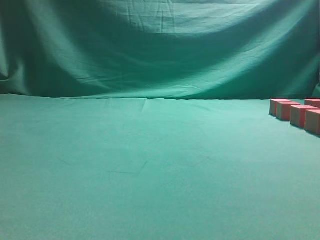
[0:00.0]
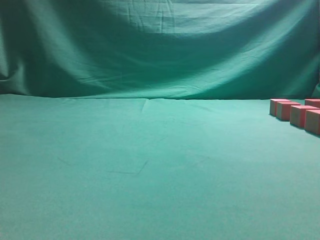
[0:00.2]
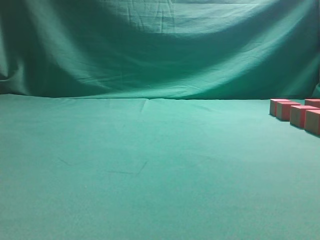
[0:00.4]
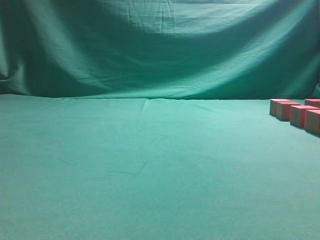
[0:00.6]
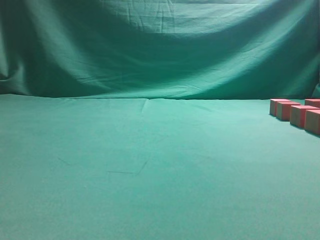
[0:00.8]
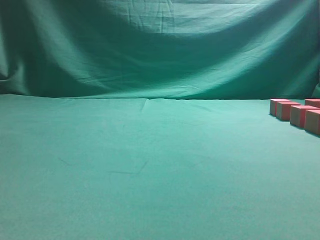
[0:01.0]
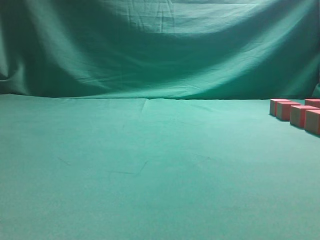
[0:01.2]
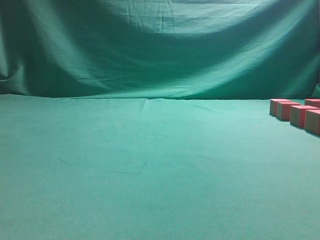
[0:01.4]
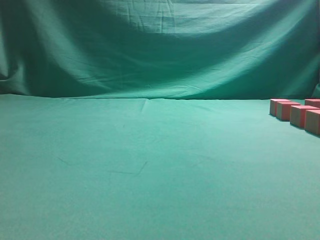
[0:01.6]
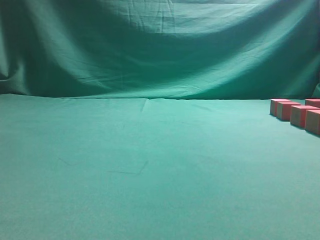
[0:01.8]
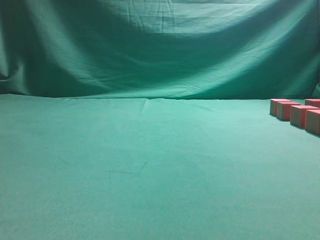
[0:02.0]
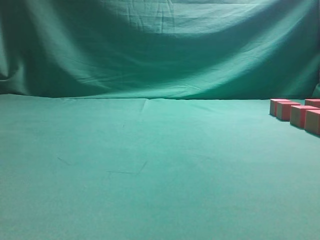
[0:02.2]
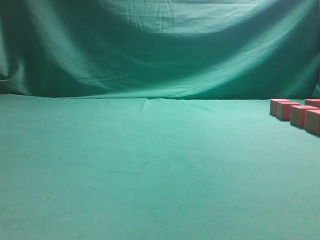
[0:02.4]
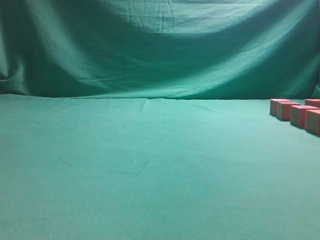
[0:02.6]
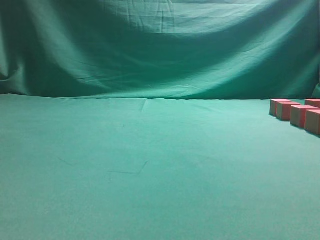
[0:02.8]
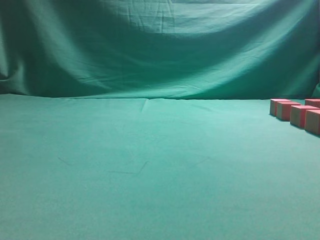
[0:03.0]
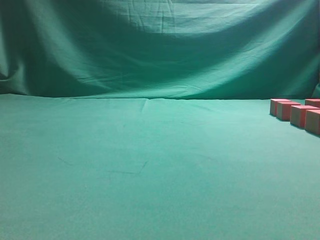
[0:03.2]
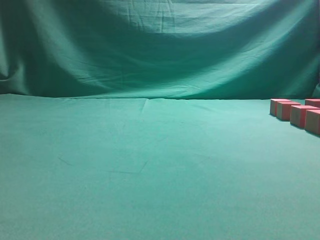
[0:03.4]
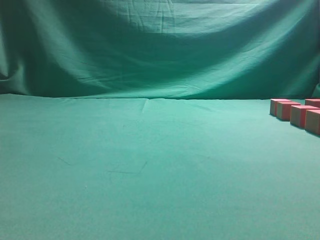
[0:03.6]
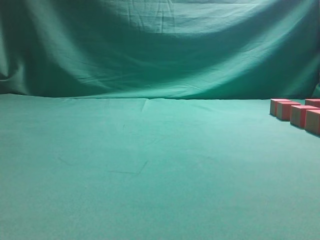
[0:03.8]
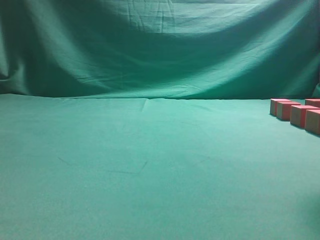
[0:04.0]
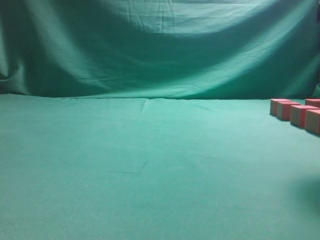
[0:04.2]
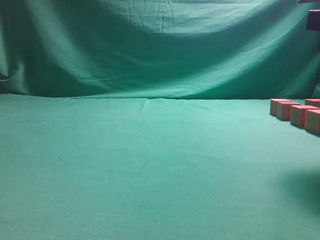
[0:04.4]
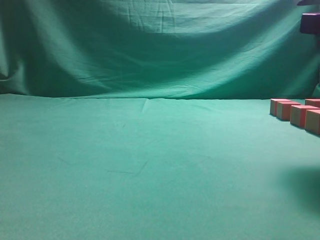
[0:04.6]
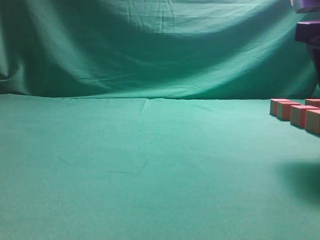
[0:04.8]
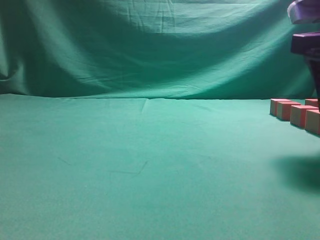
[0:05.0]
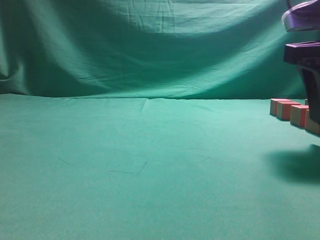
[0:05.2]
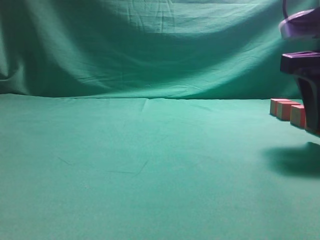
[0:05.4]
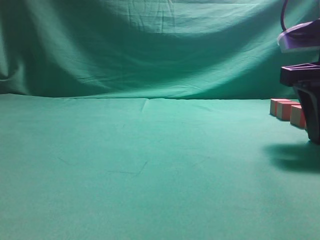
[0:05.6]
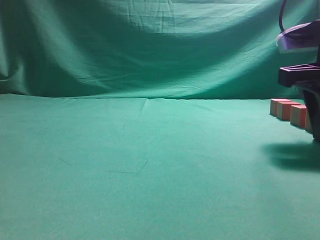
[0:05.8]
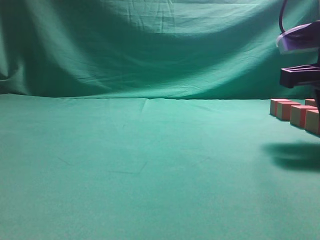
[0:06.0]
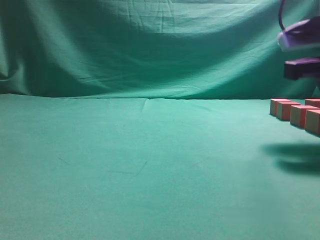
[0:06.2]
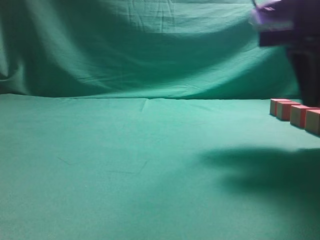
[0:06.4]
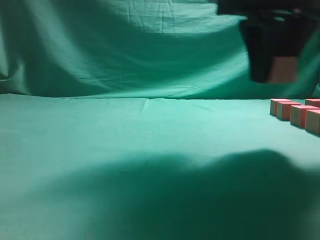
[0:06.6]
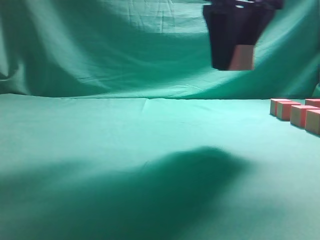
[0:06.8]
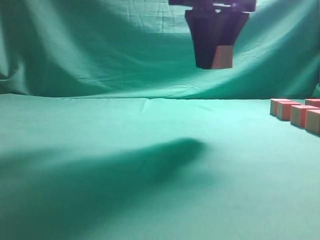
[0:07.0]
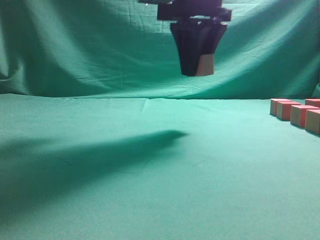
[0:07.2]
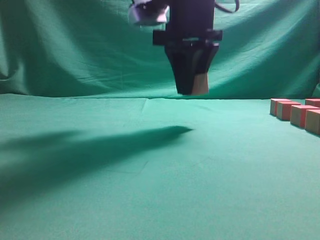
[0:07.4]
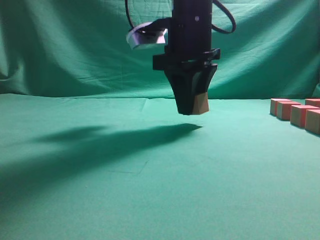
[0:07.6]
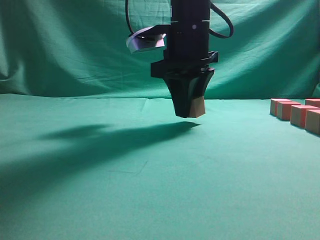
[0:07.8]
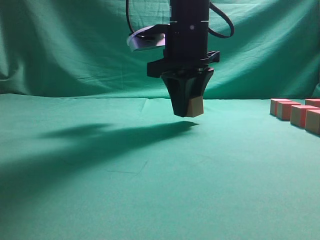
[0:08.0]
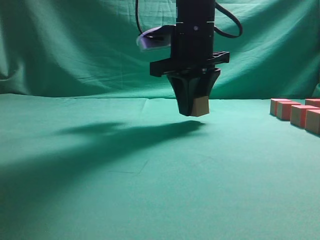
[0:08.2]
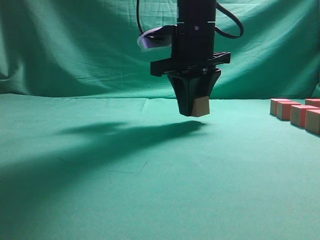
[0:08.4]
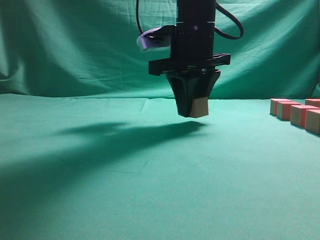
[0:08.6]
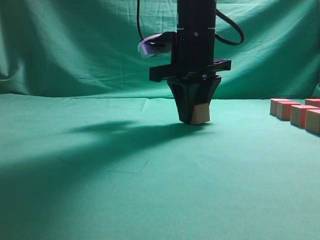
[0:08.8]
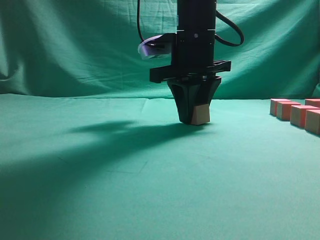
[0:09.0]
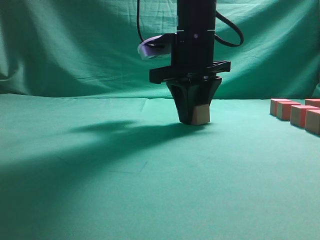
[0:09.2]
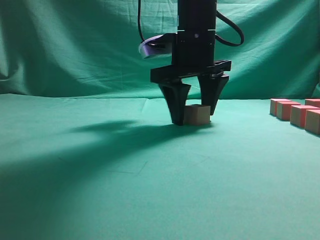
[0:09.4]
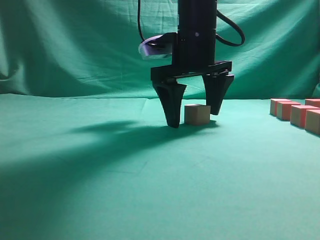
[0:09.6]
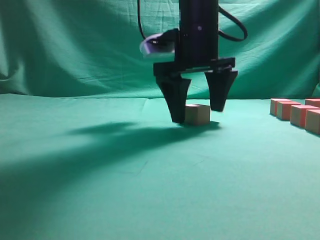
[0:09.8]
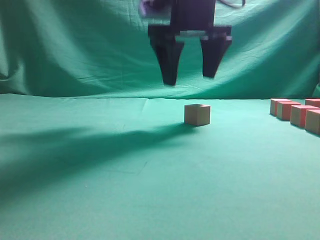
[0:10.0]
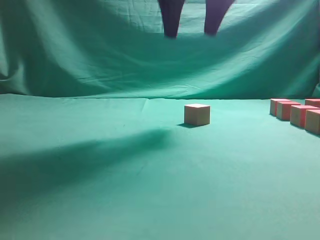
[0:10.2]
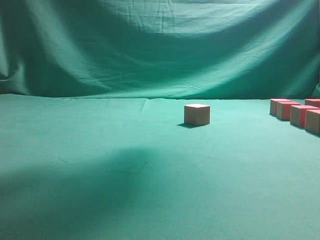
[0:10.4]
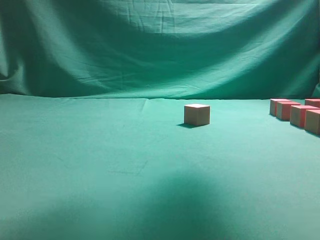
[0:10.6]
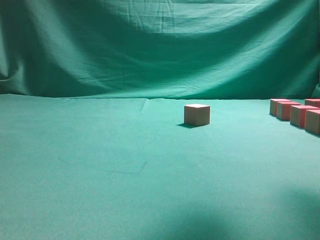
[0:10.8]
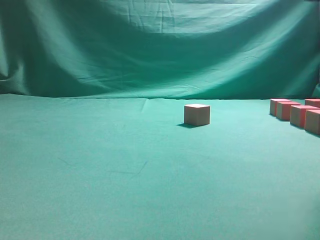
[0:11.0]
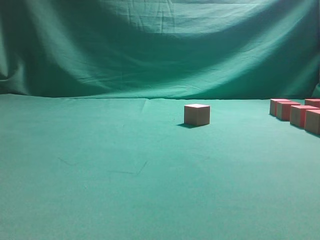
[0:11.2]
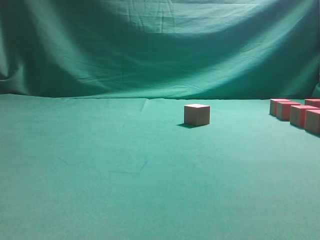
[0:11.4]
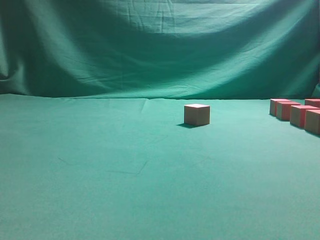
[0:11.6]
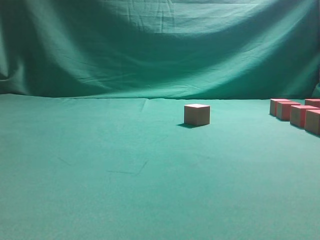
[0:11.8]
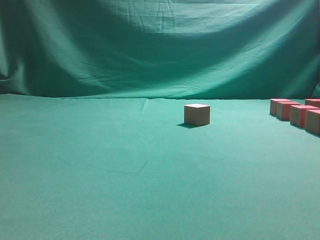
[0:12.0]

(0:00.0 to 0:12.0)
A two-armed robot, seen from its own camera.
Task of the whole recording: pick up the multiple cubes in two columns one by one and place them in another position on the table.
Step, 0:00.0 - 0:06.2: Pick up the block on the table.
Step, 0:06.4 - 0:10.0: Place the block at the correct position to assemble the letter S.
0:03.0 - 0:04.4: The right gripper travels forward by some 15 cm.
0:04.4 - 0:06.0: The right gripper goes about 5 cm downward, and opens, then closes once more.
0:06.0 - 0:07.6: The right gripper shifts roughly 20 cm to the left and forward.
0:07.6 - 0:09.0: The grippers stay close to where they were, moving slightly.
0:09.0 - 0:10.4: The right gripper moves upward, approximately 20 cm, and opens up.
0:10.4 - 0:12.0: The right gripper heads to the right and downward, covering roughly 25 cm.

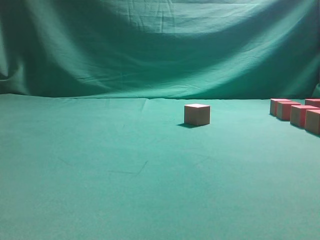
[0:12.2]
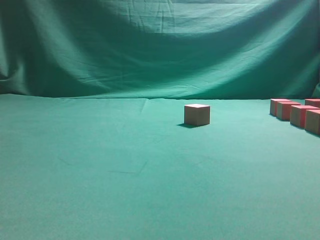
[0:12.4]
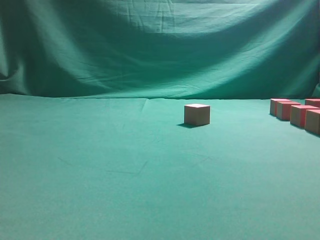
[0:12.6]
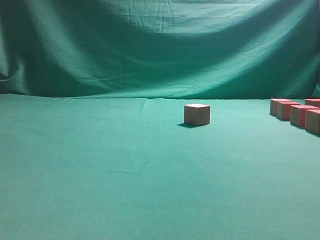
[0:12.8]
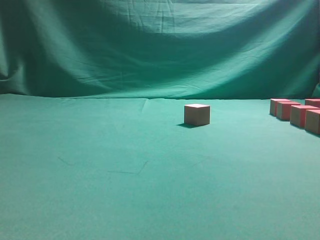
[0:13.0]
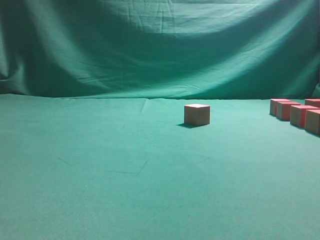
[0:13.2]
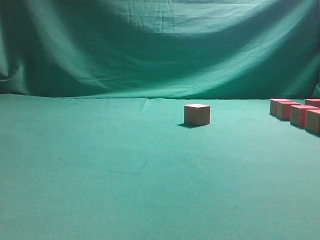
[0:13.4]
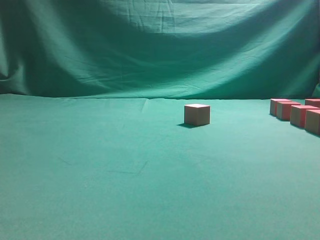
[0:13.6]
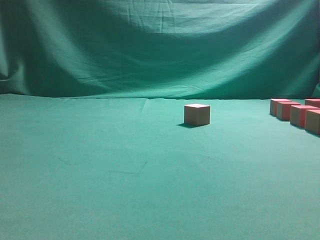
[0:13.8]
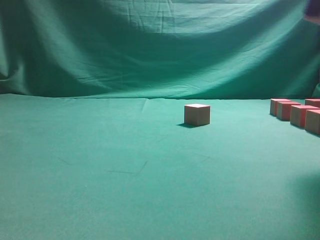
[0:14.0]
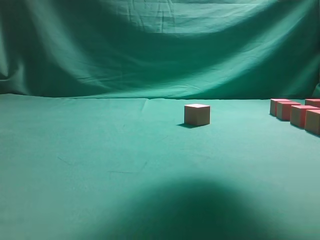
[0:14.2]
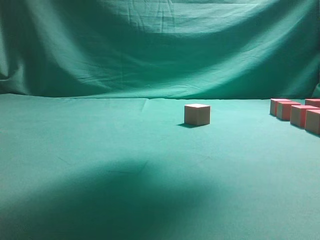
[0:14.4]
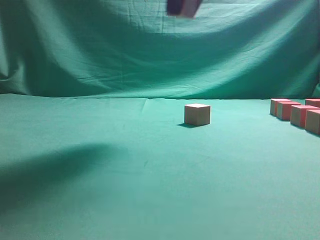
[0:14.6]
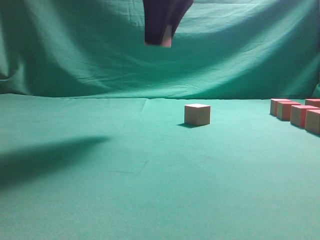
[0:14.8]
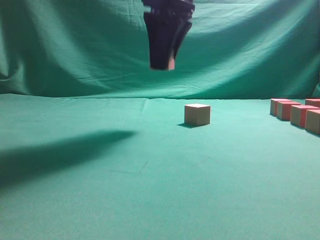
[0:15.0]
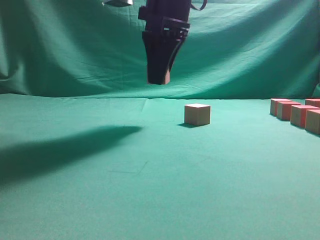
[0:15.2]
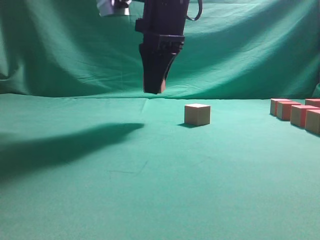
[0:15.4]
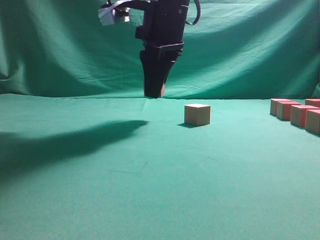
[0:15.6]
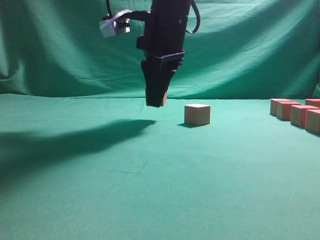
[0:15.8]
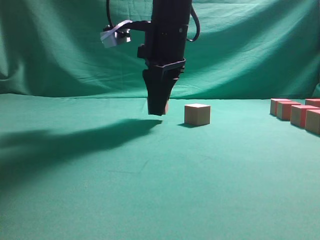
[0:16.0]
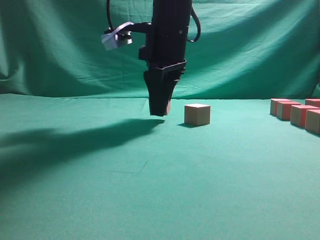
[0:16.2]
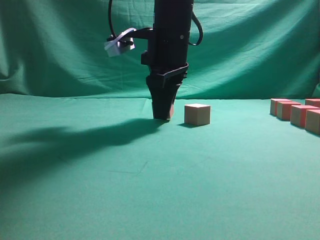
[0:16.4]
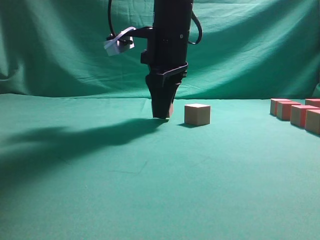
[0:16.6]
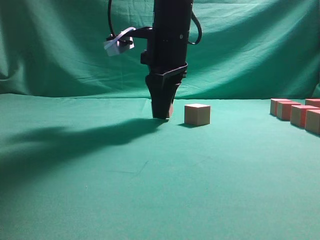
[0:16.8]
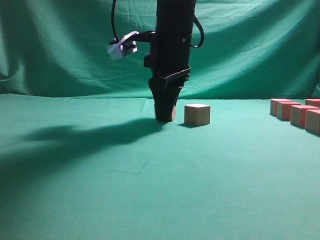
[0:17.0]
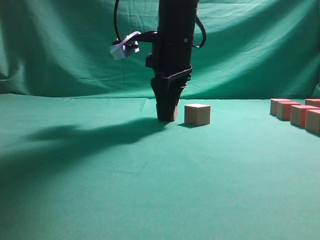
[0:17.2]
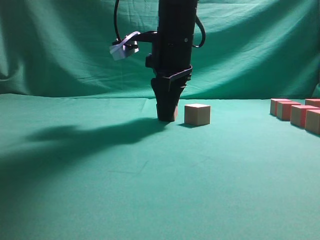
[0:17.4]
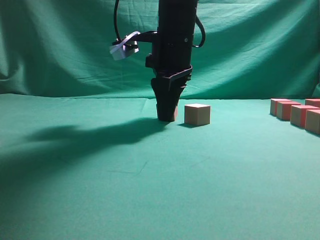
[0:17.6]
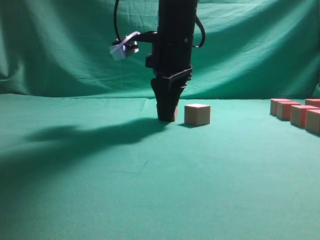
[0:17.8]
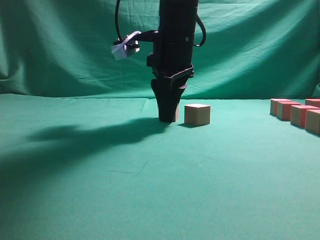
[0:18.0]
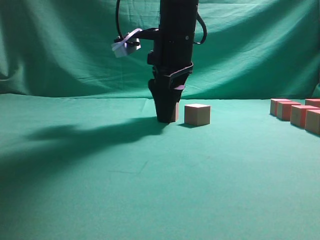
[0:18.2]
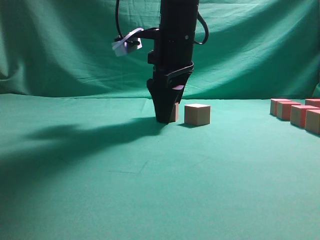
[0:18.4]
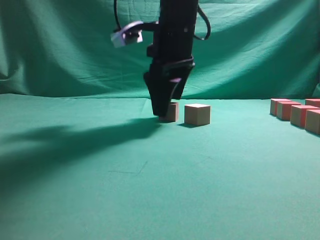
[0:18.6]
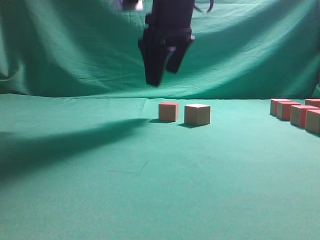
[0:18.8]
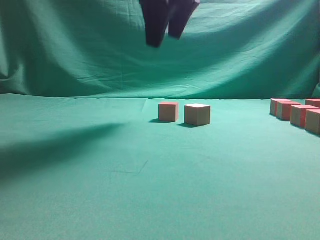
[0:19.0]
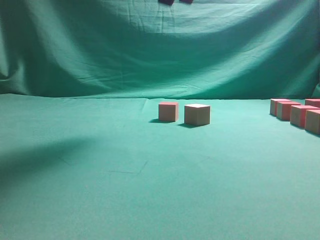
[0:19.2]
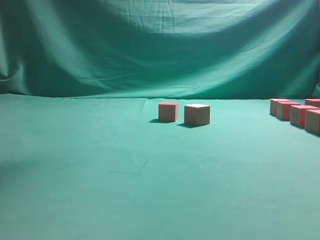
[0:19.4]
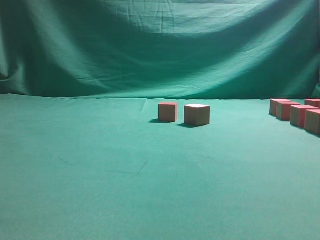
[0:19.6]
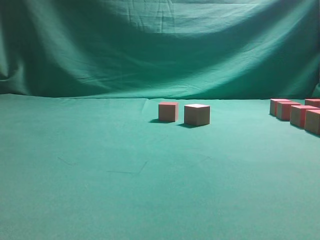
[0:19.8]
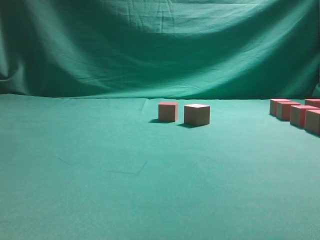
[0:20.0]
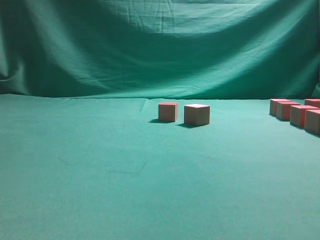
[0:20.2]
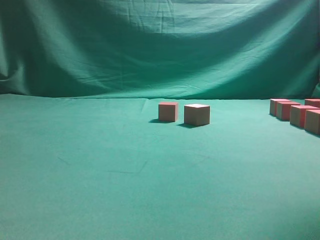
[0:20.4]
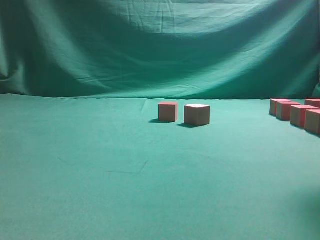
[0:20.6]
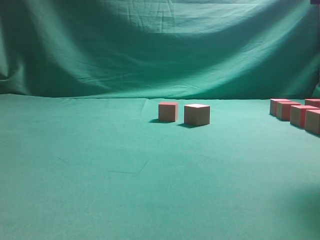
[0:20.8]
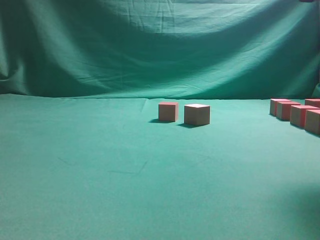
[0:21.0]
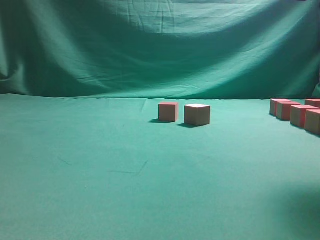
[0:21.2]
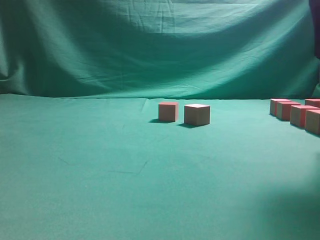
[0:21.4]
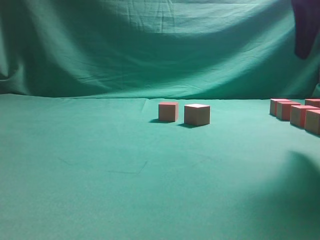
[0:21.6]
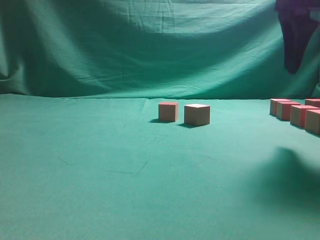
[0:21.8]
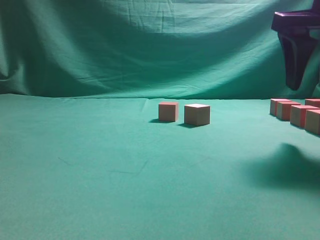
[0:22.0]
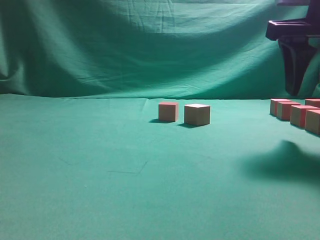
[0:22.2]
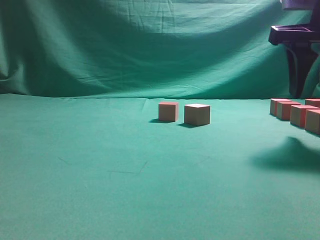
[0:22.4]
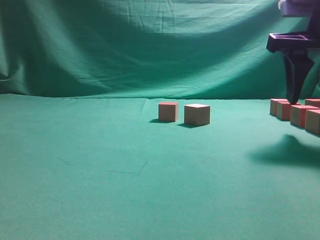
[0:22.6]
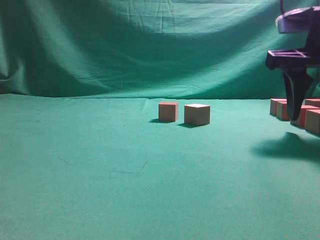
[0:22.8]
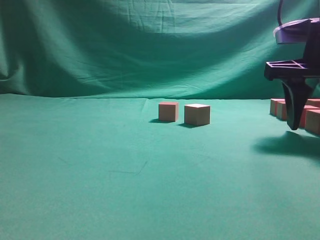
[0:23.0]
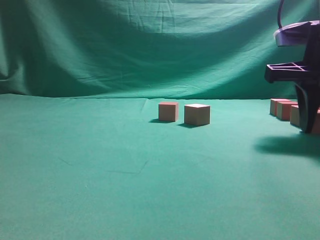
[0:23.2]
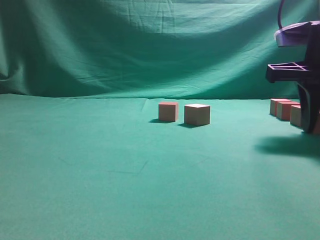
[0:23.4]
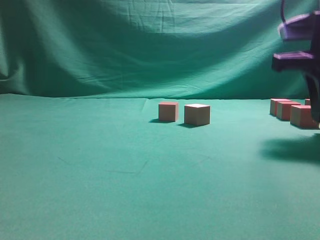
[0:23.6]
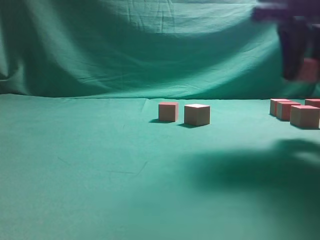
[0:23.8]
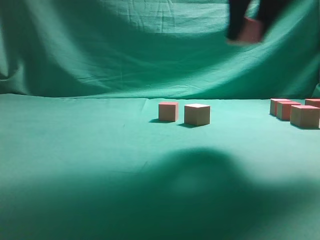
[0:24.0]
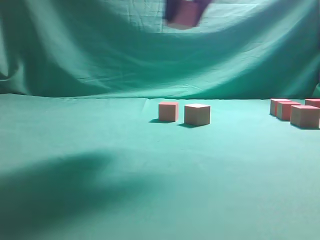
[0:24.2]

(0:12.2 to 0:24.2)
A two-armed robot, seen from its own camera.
Task of the whole recording: pick up the multiple cubes in two columns one by one and place them in another position on the table.
Step, 0:13.6 - 0:18.8: Place the block at the correct position to assemble the letter S.
Step, 0:19.0 - 0:23.6: Pick up the block on the table.
0:13.8 - 0:15.2: The right gripper is displaced to the left and forward by some 25 cm.
0:15.2 - 0:16.6: The right gripper goes roughly 5 cm downward.
0:16.6 - 0:18.2: The right gripper opens.
0:18.2 - 0:19.8: The right gripper moves upward and backward, roughly 30 cm, and closes up.
0:19.8 - 0:21.2: The right gripper is displaced downward and to the right by about 25 cm.
0:21.2 - 0:22.6: The right gripper heads downward, covering some 5 cm, and opens up.
0:22.6 - 0:24.2: The right gripper moves to the left and upward, some 20 cm, and closes its fingers.
